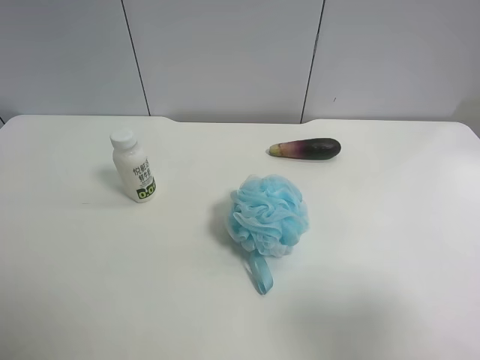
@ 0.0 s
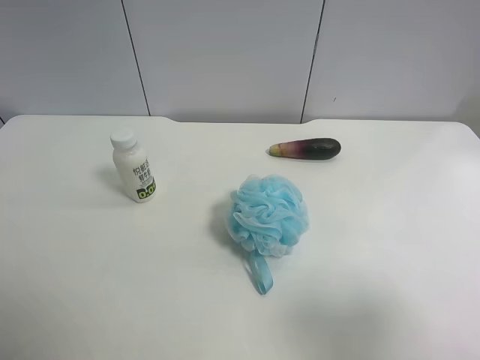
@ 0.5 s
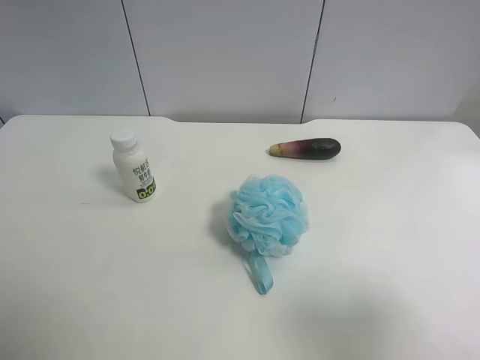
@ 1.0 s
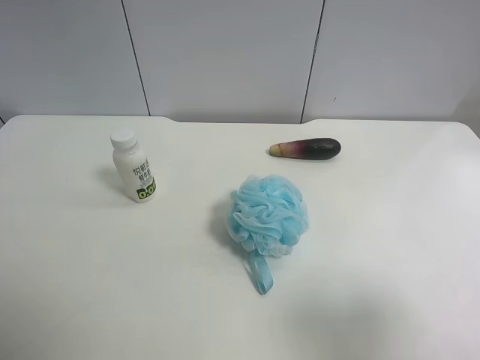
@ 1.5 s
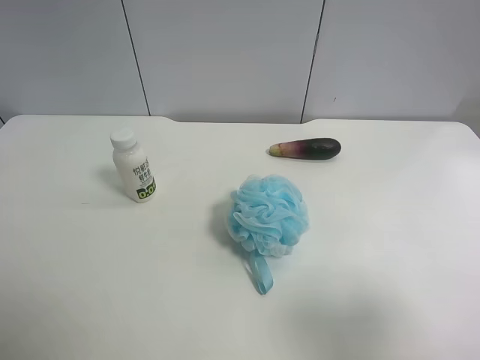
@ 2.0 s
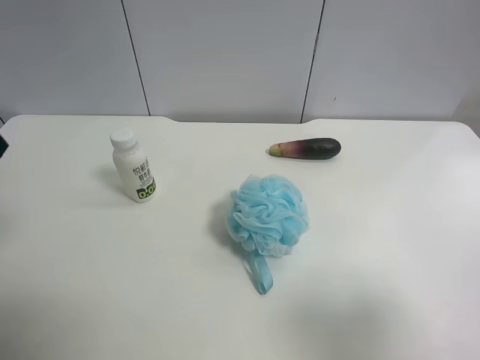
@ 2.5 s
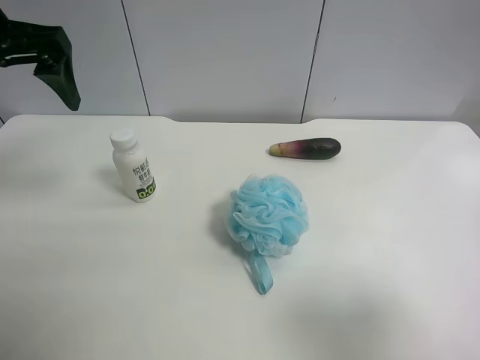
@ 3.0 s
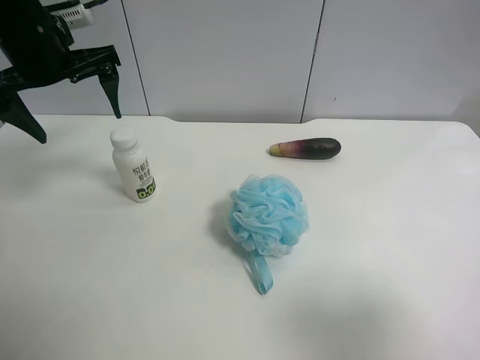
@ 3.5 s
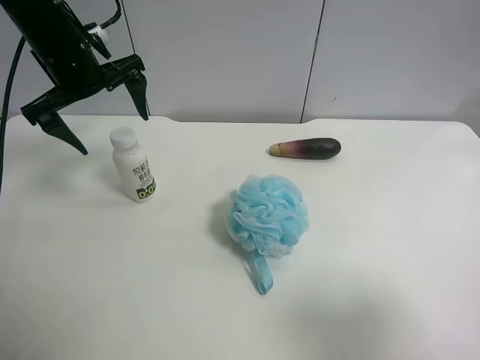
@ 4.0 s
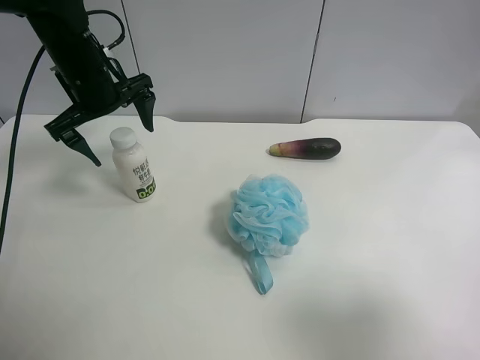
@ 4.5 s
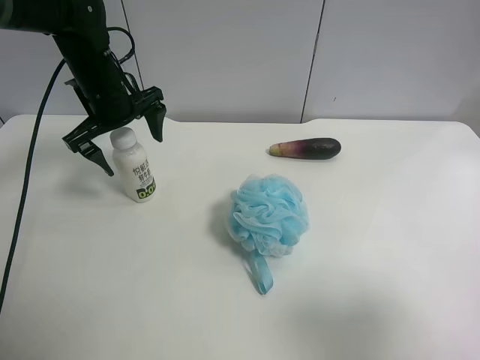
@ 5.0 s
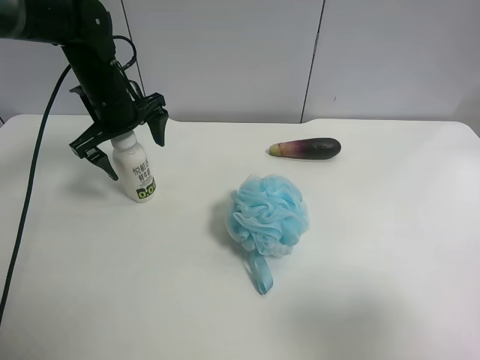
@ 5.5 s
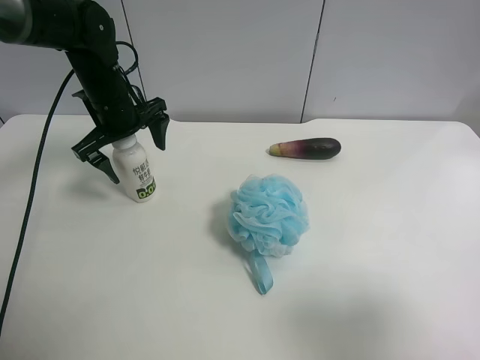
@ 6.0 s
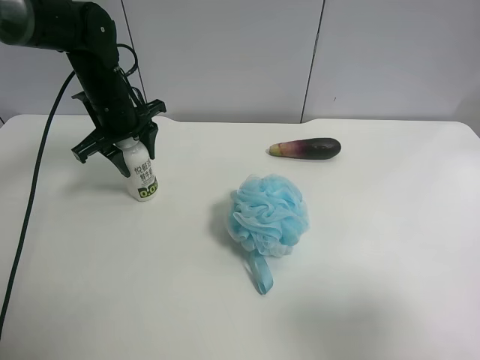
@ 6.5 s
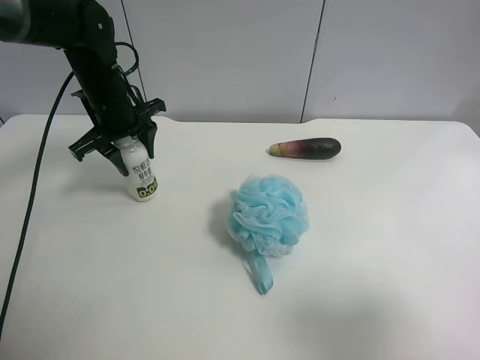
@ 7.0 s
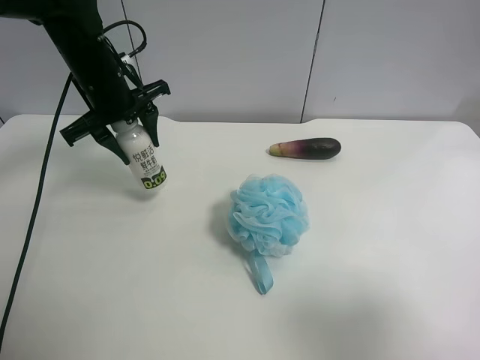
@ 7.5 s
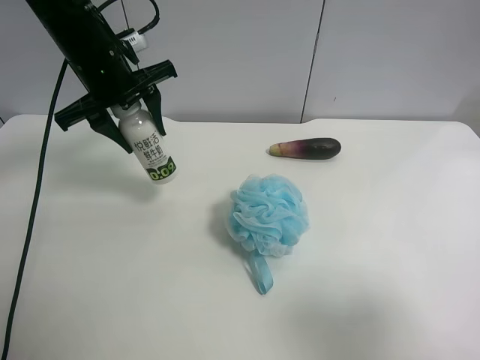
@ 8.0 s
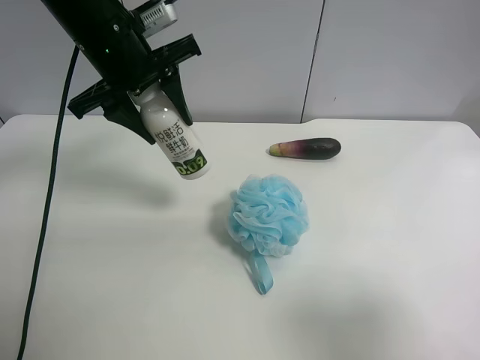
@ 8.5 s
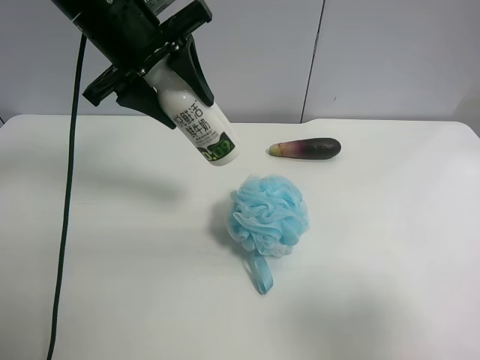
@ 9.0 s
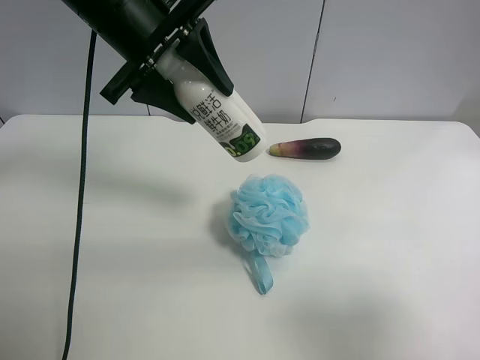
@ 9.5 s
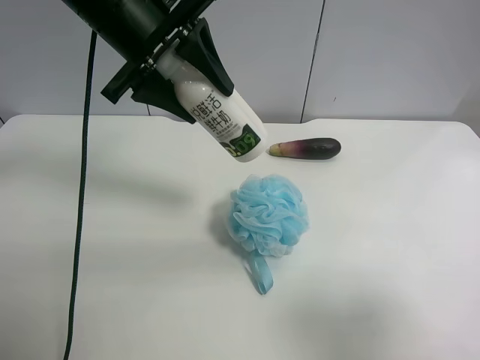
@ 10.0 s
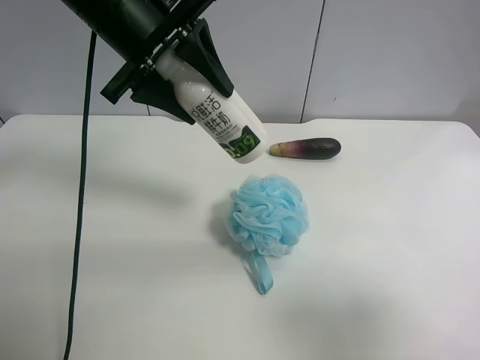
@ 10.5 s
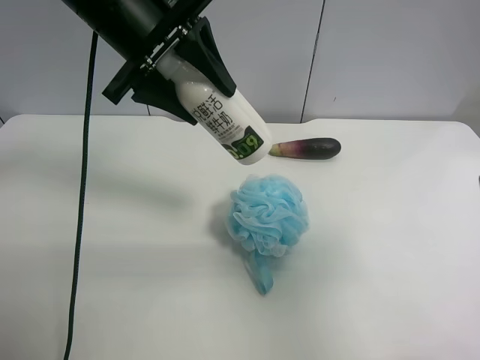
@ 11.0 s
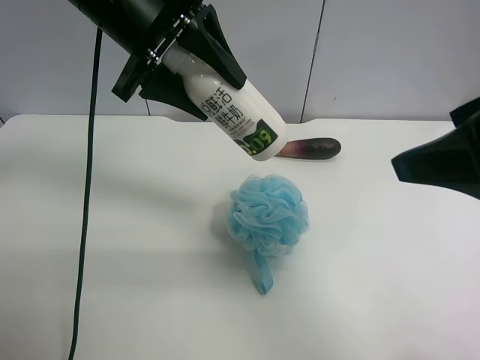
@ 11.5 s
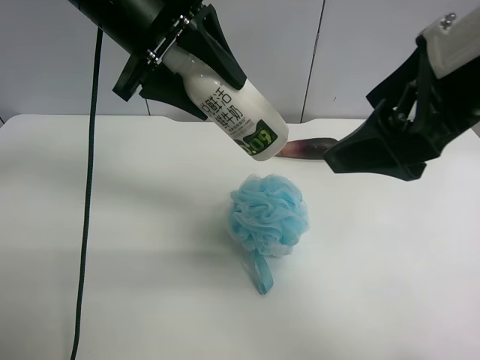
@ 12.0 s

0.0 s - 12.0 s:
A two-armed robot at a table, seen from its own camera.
Task of the whole recording: use the left gripper to pick up the item and transfer it from the left gripper to the right gripper.
2.0 s - 4.0 s: The left gripper heads forward, covering roughly 30 cm.
4.0 s - 6.0 s: The left gripper shifts roughly 10 cm downward.
6.0 s - 8.0 s: The left gripper moves upward, roughly 10 cm, and closes.
8.0 s - 10.0 s: The left gripper is displaced upward and to the right by about 10 cm.
10.0 s - 12.0 s: The right gripper is displaced forward and to the left by about 20 cm.

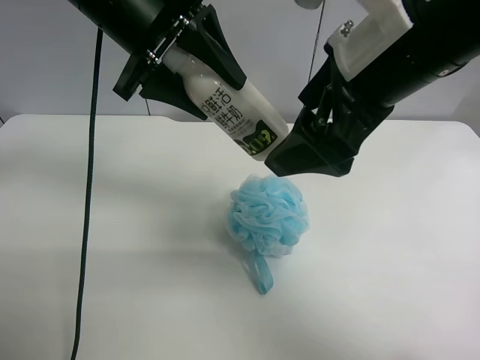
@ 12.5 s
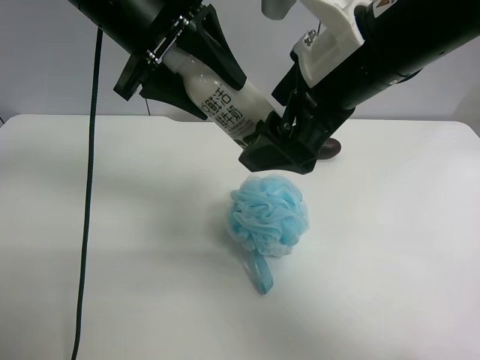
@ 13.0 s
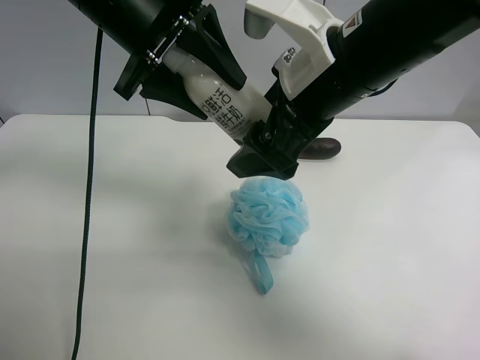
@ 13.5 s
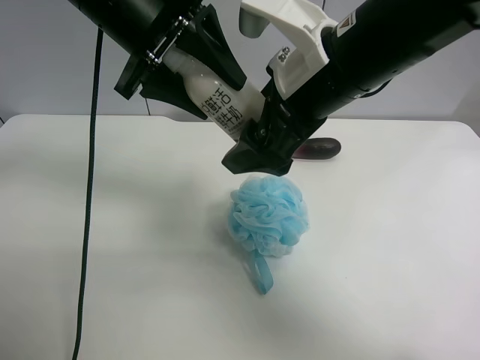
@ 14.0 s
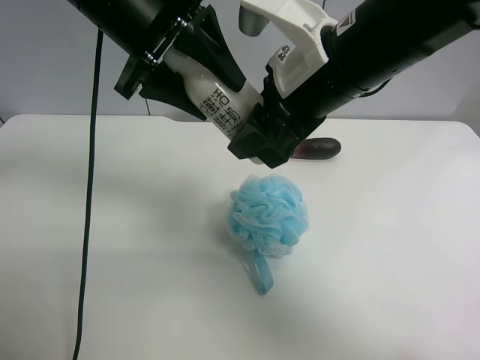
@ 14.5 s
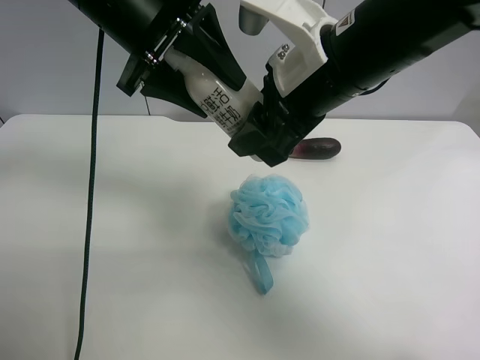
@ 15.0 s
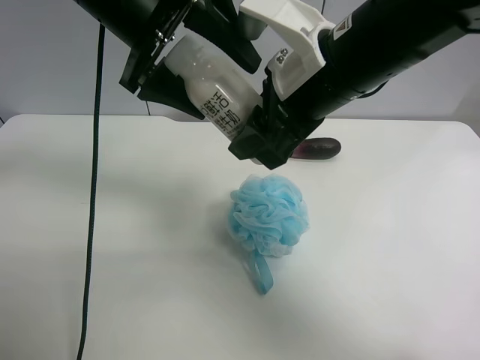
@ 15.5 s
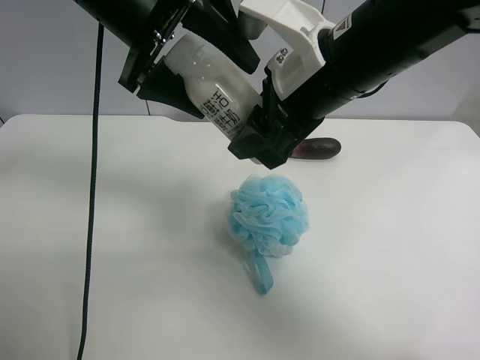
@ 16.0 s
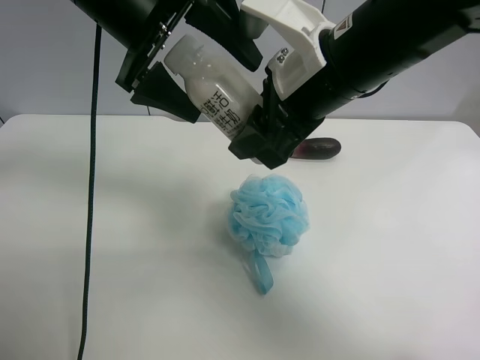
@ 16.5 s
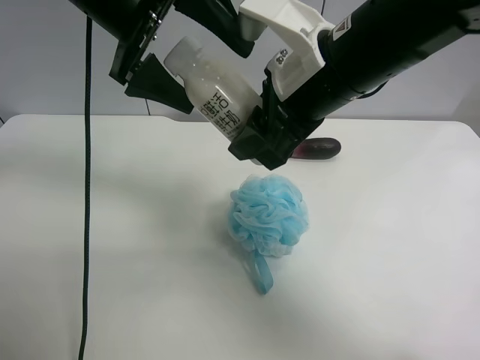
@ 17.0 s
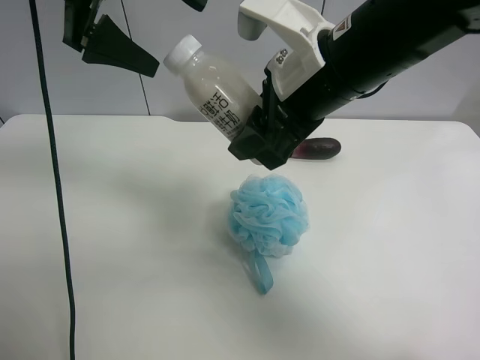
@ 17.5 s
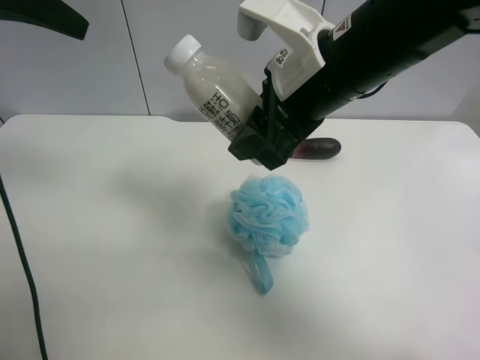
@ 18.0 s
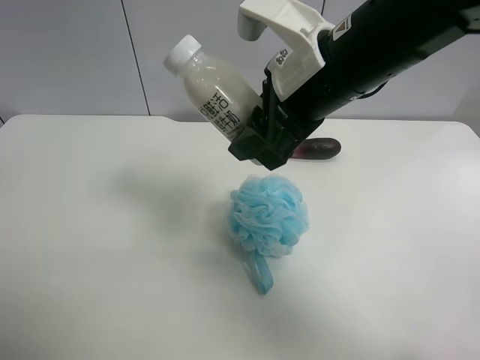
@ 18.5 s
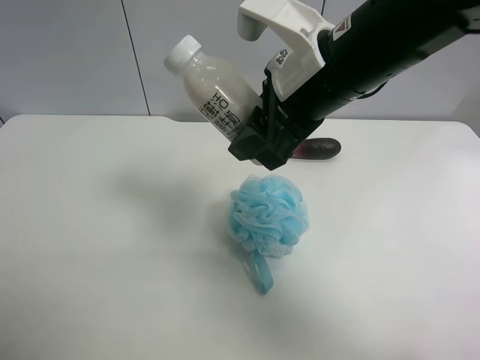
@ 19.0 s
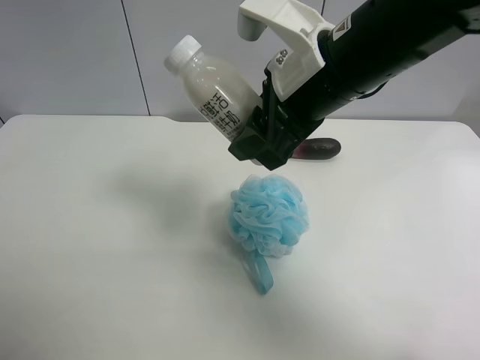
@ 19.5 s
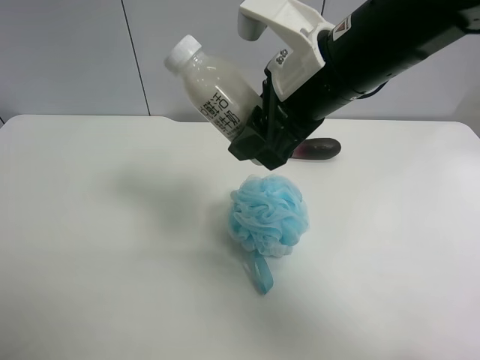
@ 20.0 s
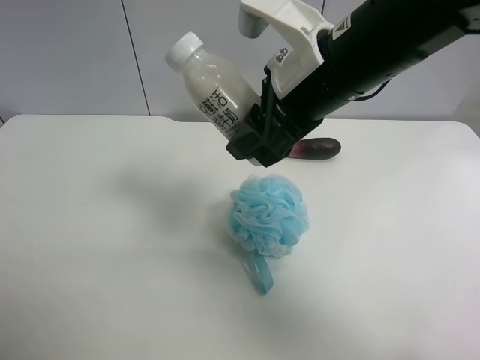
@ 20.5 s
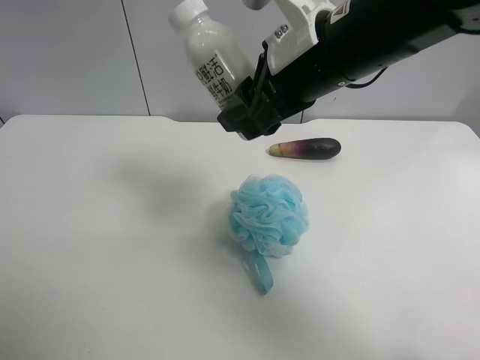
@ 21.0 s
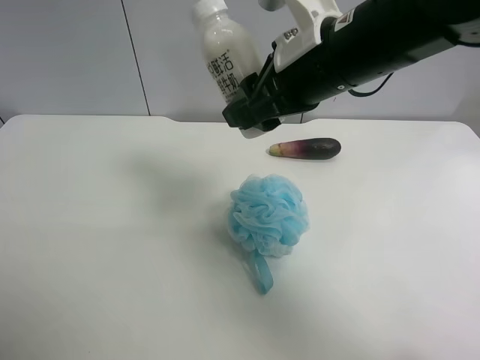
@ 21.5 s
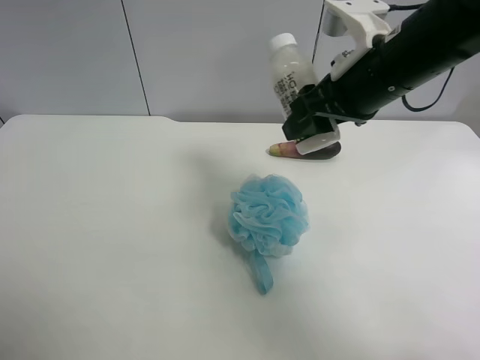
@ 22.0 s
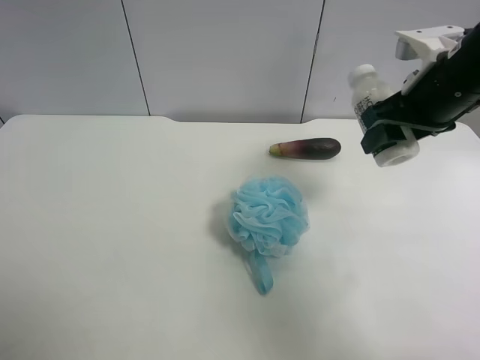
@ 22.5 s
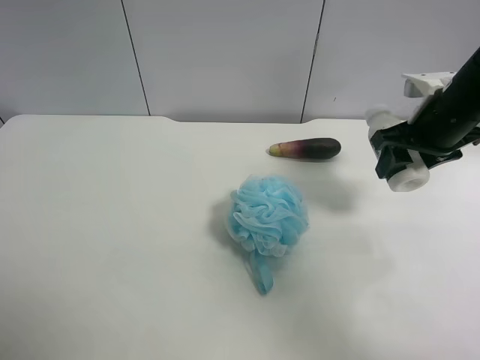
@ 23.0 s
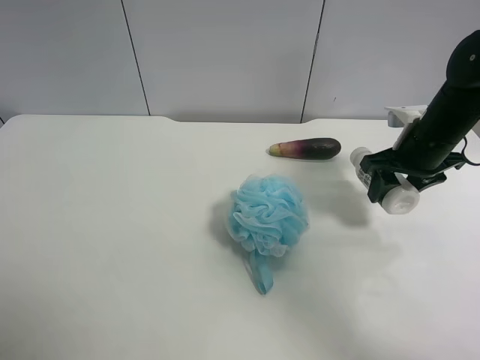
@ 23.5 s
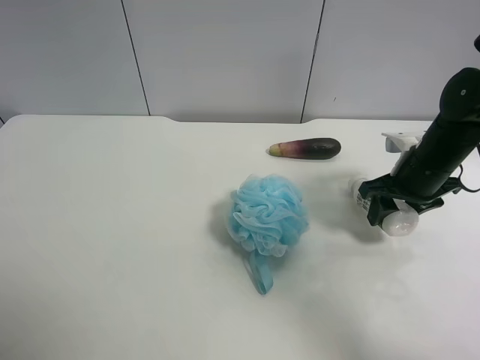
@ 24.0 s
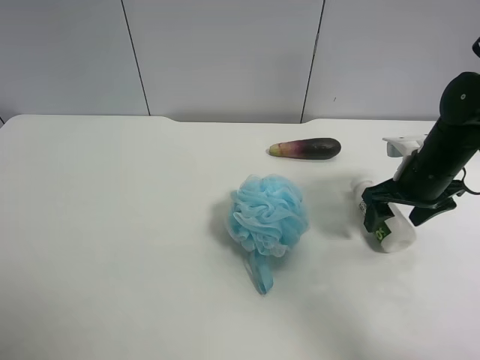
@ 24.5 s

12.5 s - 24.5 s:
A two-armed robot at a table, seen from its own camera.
Task of the whole recording: use the left gripper to pick up the item and transfer it from the left gripper to the right gripper.
12.5 s - 14.5 s: The right gripper shifts by approximately 5 cm, and closes its fingers.
14.5 s - 16.5 s: The left gripper opens up.
16.5 s - 18.5 s: The left gripper is displaced upward, to the left and backward by about 25 cm.
18.5 s - 20.5 s: The left gripper moves downward and backward, approximately 25 cm.
20.5 s - 22.5 s: The right gripper heads to the right, covering some 15 cm.
22.5 s - 24.5 s: The right gripper travels downward by roughly 15 cm, and opens.

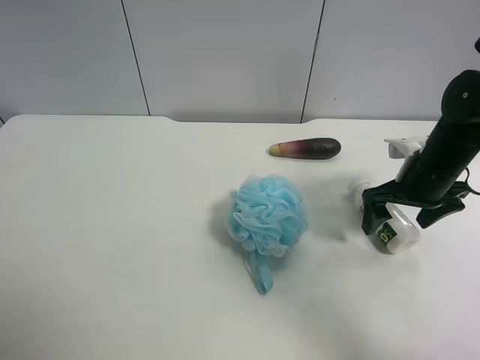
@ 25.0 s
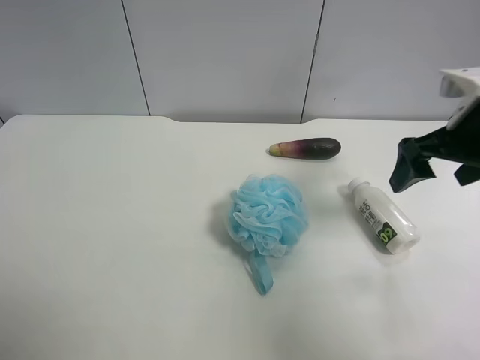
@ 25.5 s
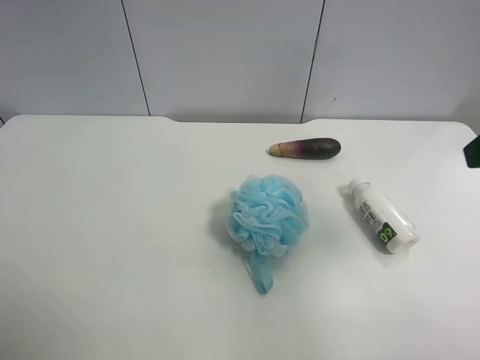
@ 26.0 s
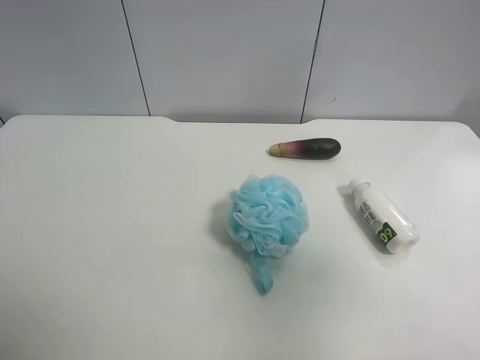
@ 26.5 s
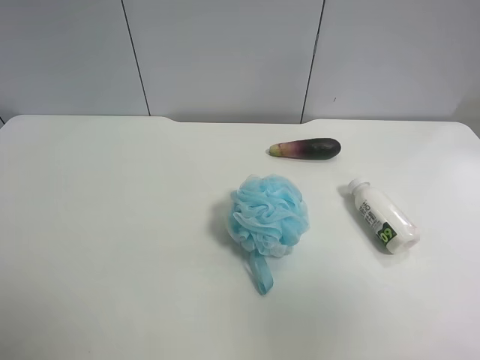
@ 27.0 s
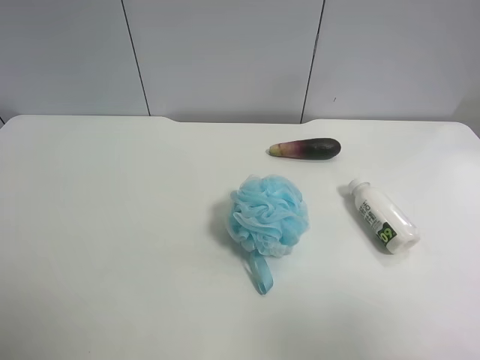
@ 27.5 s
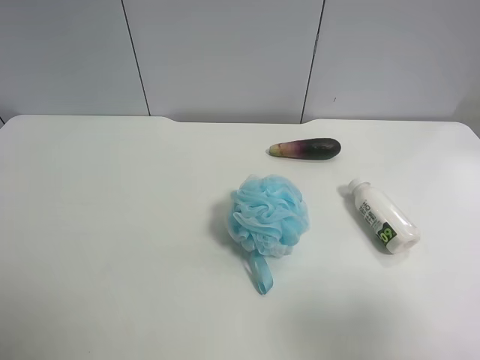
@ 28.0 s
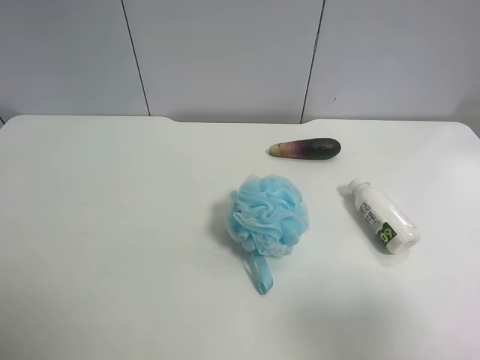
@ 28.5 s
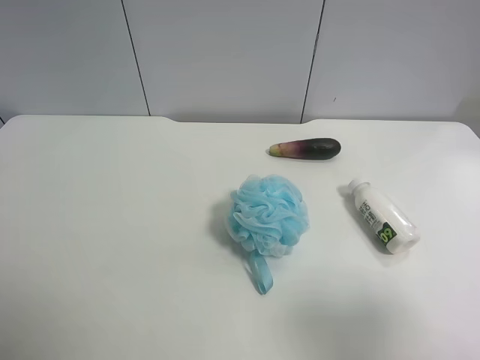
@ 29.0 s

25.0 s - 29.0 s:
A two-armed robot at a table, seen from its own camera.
Task of the whole recording: use the left gripper to pick up the item and transfer it from the left gripper to the right gripper.
25.0 s - 27.0 s: The right gripper moves backward and upward, about 40 cm.
27.0 s - 29.0 s: The right gripper heads downward, covering roughly 10 cm.
